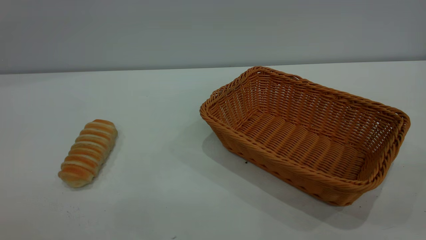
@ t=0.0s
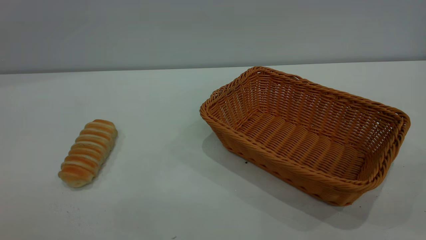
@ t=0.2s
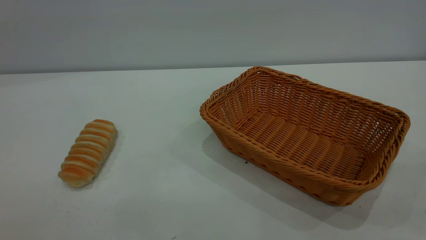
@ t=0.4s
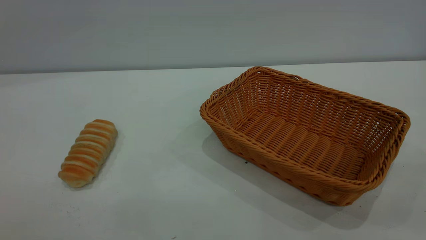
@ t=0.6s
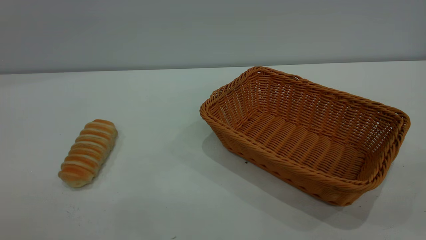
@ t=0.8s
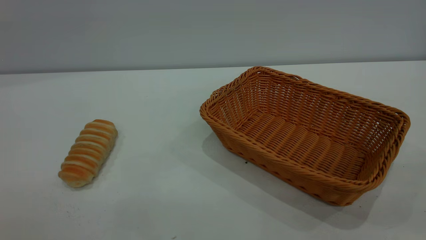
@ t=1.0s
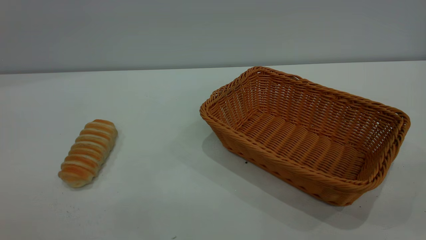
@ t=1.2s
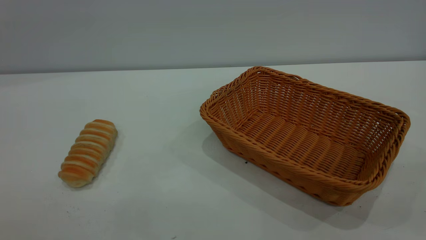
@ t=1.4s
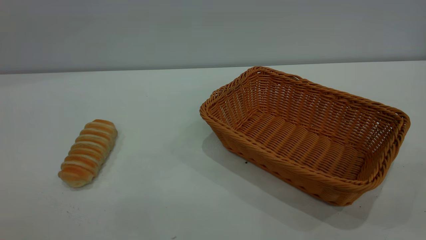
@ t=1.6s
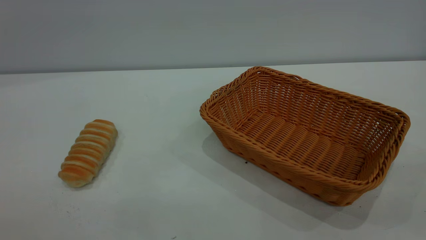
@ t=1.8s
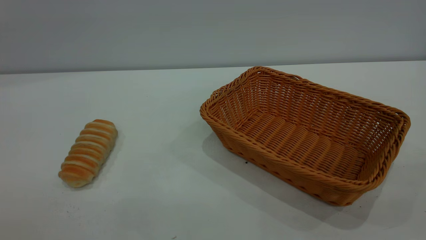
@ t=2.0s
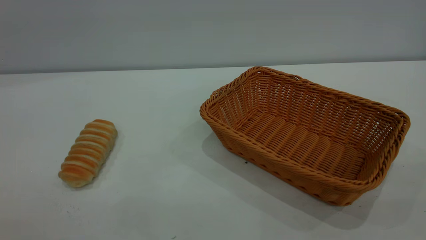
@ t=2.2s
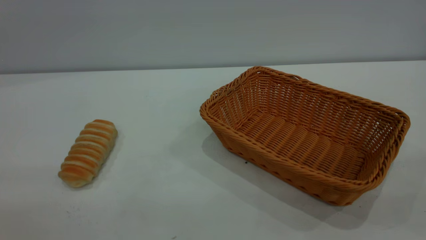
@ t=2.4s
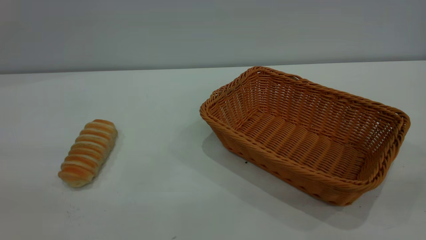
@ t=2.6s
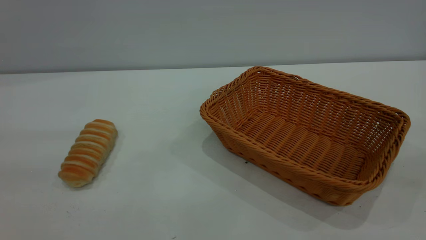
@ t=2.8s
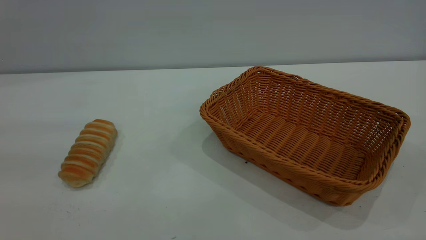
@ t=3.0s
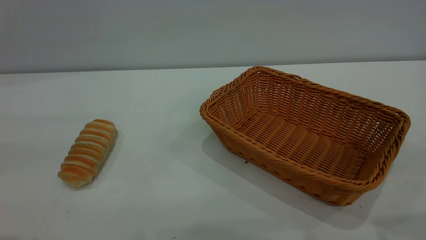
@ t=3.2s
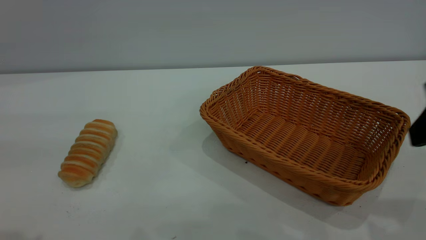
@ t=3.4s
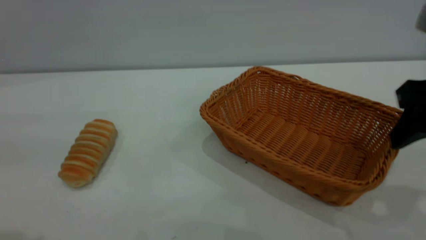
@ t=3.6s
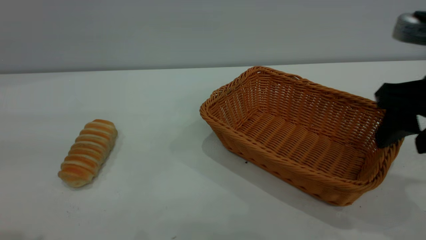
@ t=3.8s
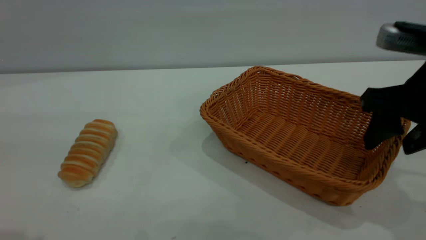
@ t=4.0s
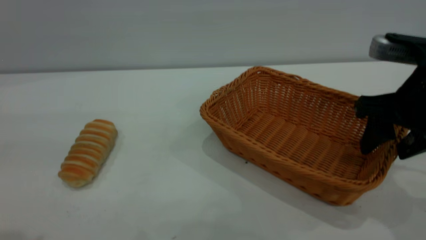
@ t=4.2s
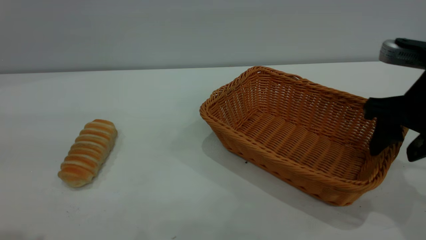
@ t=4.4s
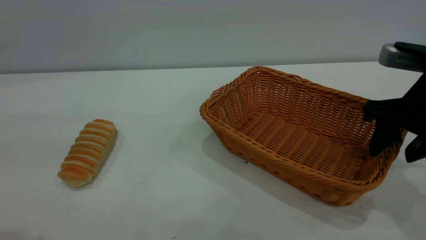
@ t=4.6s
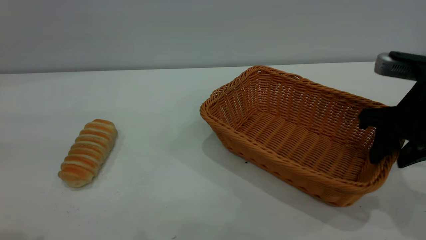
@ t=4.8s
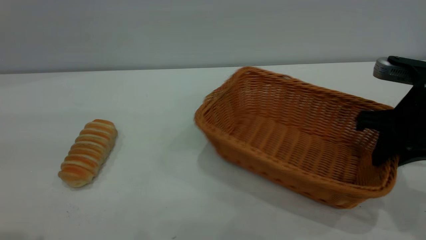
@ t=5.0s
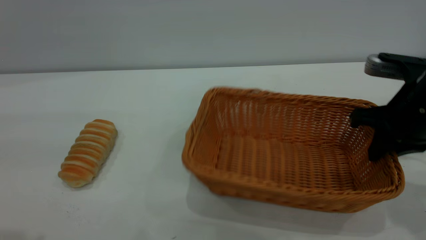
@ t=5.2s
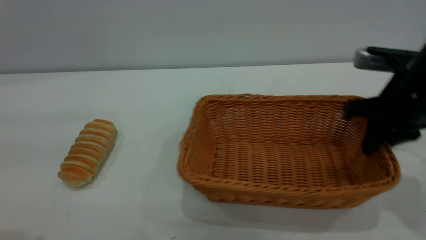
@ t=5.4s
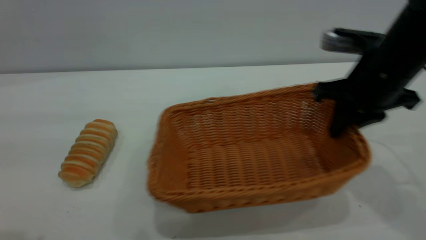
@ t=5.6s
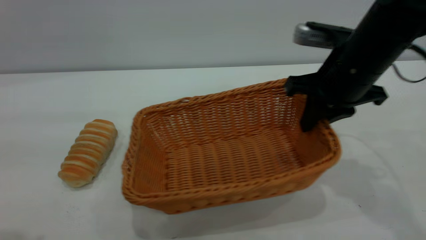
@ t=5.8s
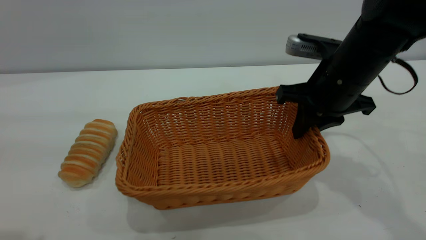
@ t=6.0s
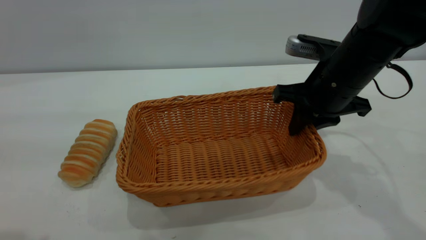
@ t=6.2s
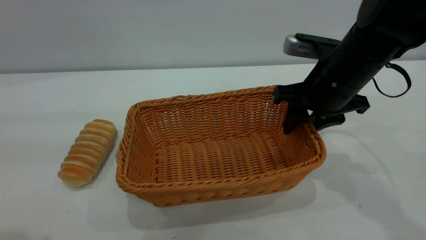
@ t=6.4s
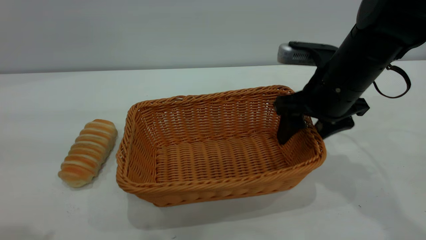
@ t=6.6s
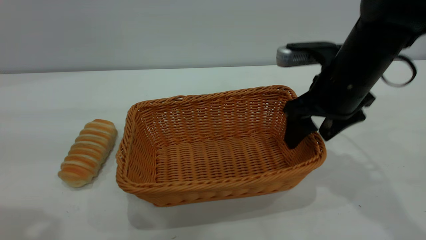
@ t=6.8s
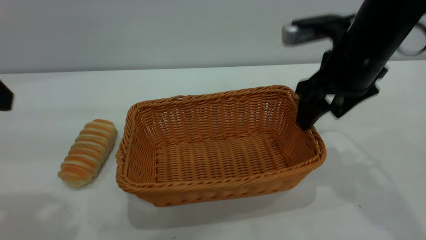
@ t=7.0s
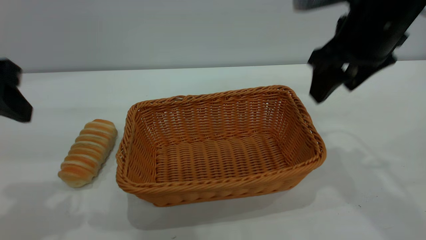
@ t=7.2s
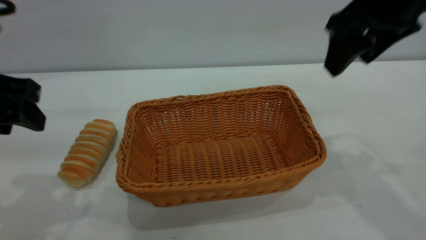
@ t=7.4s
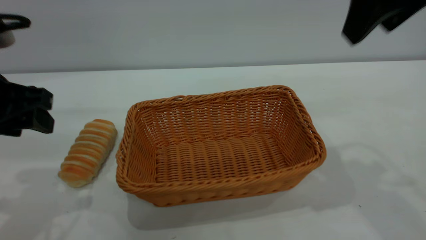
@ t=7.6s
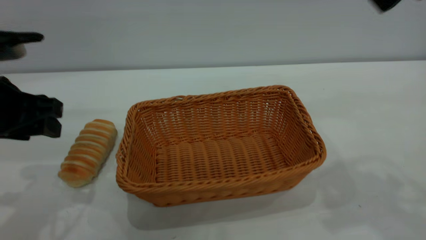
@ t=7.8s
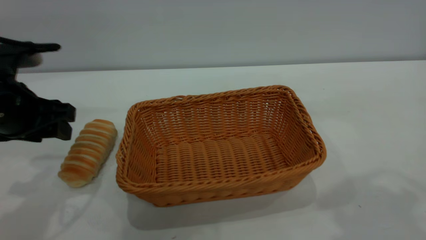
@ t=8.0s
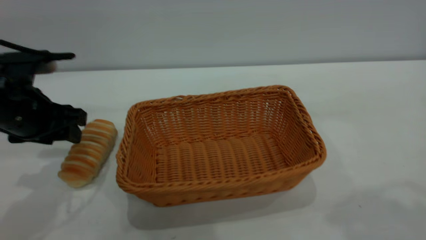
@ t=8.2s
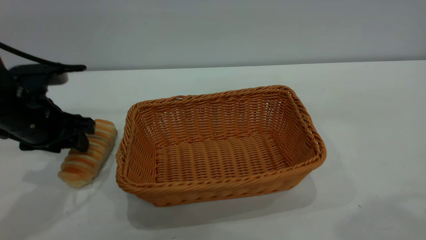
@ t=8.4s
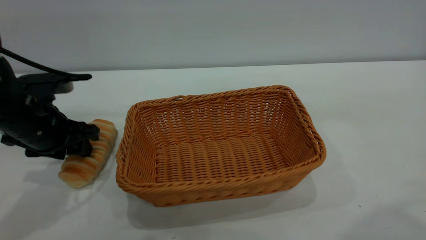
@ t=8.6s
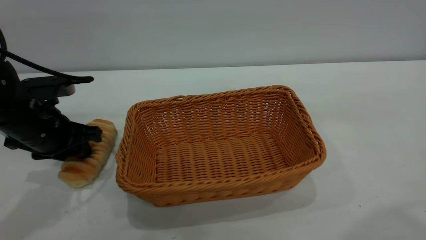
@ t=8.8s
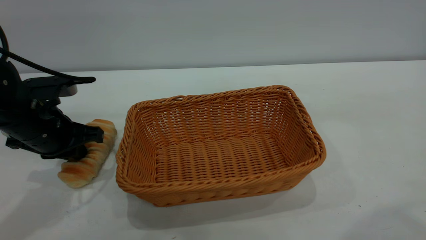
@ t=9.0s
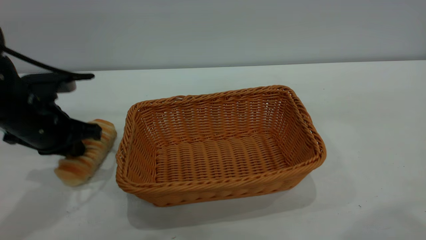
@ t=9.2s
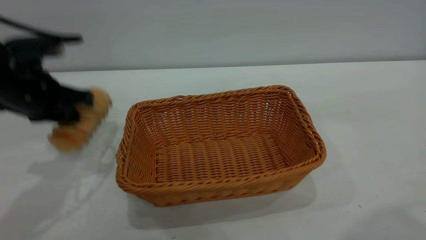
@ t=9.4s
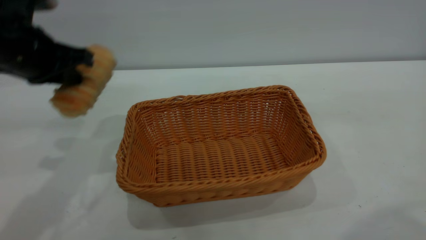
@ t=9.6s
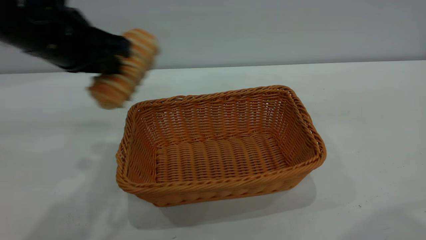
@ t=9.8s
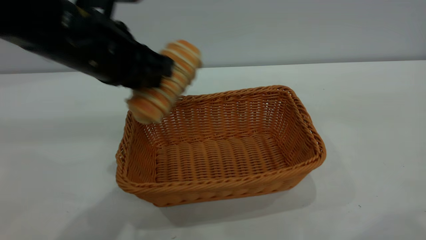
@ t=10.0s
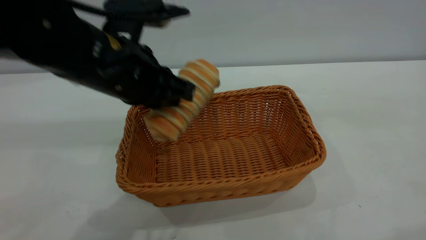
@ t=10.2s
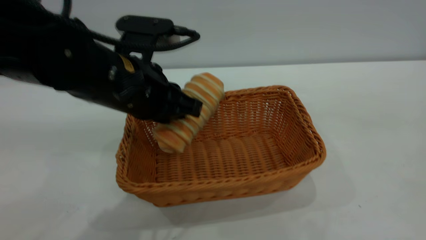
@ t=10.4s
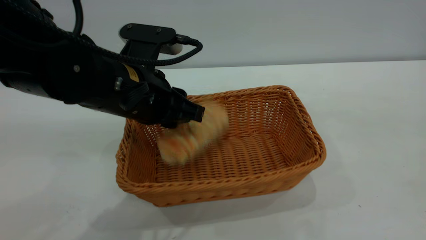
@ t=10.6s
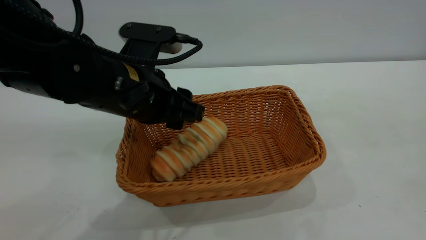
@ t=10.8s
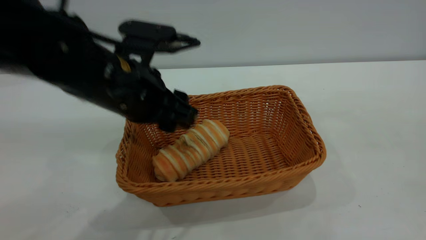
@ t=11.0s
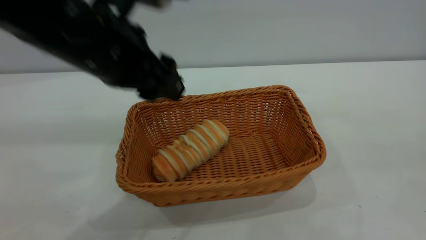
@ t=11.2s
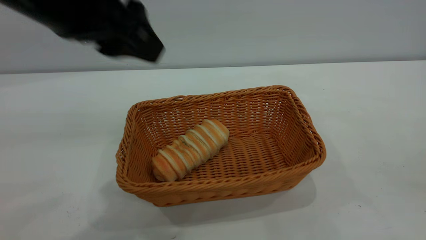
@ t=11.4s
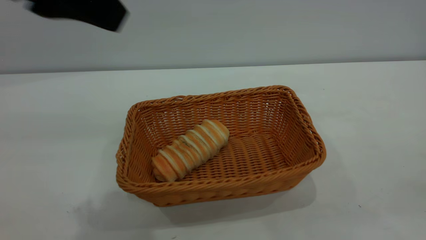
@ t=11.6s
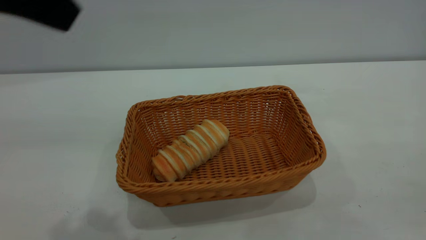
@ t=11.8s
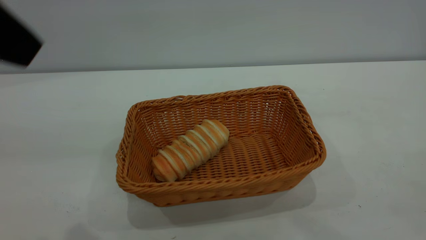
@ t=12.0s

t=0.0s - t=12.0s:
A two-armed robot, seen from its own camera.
Task of the whole recording: One hand grasps the yellow basket and places it in the middle of the table, while the other hand picks up the long bread and puts it into the yellow basket.
Step, t=0.0s - t=7.0s: Move the basket to the center of view.
Step, t=9.6s - t=11.2s: place the bread into the basket.
t=0.0s - t=1.6s: Both grippers stay about where they are.
t=3.0s - t=4.4s: The right gripper goes some 20 cm forward and downward.
t=4.4s - t=6.0s: The right gripper moves to the left and forward, roughly 10 cm, and closes.
t=6.0s - t=7.6s: The right gripper moves upward, roughly 20 cm, and opens up. Meanwhile the left gripper shifts approximately 15 cm downward and forward.
t=7.6s - t=9.0s: The right gripper goes some 15 cm backward and upward. The left gripper travels downward and forward by roughly 10 cm, and closes up.
t=9.0s - t=10.4s: The right gripper is displaced backward by approximately 5 cm, while the left gripper heads to the right and upward, covering approximately 15 cm.
t=10.4s - t=12.0s: The left gripper is displaced upward, backward and to the left by about 25 cm, and opens up; the right gripper shifts roughly 15 cm downward and backward.

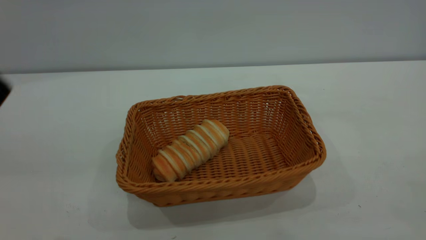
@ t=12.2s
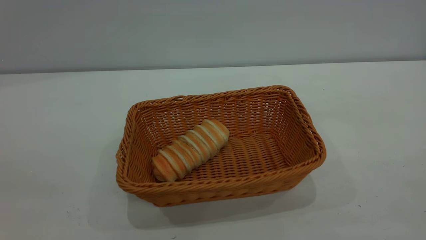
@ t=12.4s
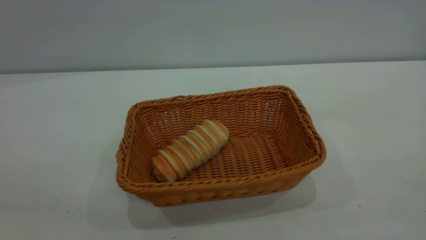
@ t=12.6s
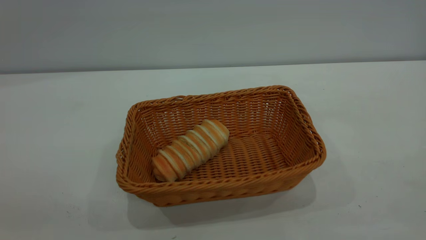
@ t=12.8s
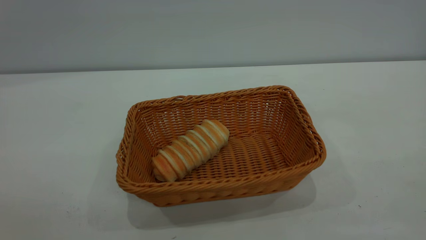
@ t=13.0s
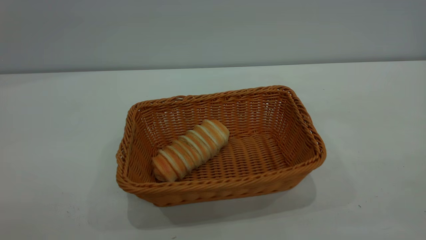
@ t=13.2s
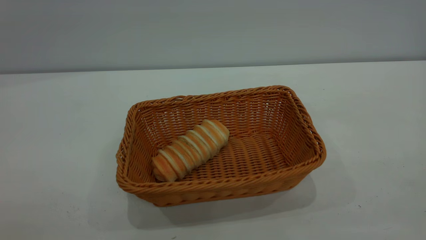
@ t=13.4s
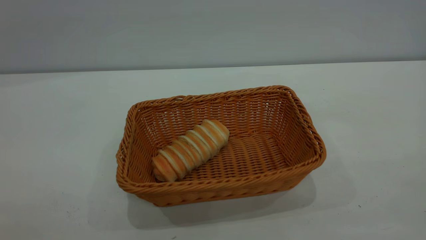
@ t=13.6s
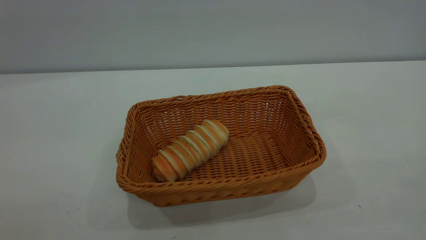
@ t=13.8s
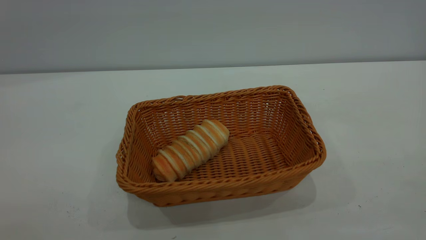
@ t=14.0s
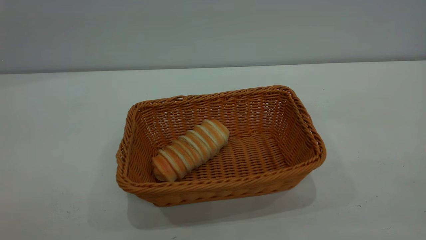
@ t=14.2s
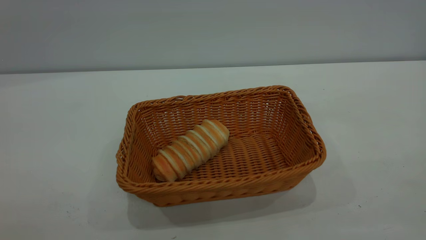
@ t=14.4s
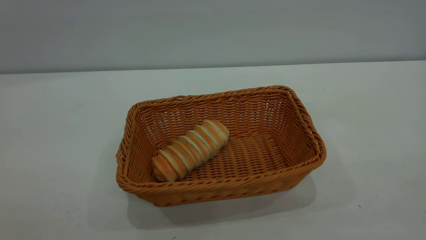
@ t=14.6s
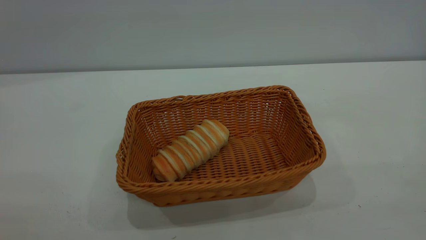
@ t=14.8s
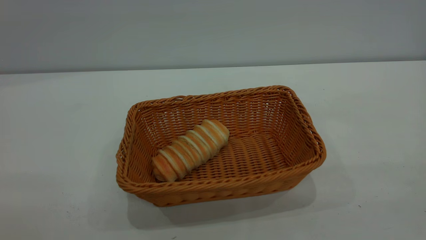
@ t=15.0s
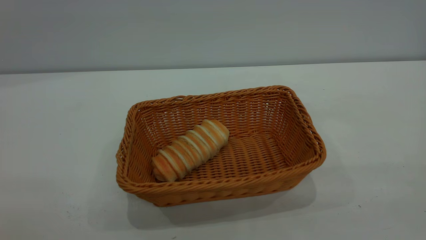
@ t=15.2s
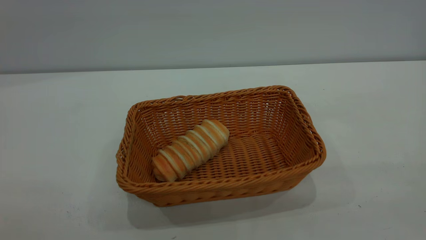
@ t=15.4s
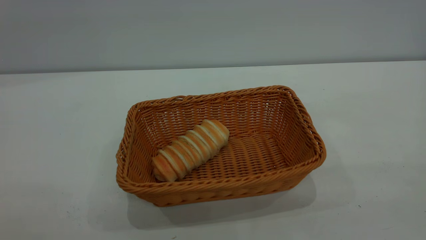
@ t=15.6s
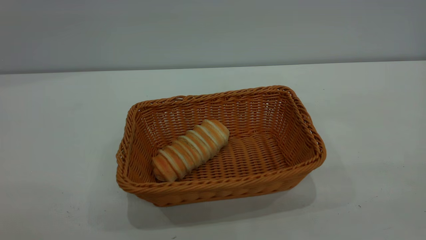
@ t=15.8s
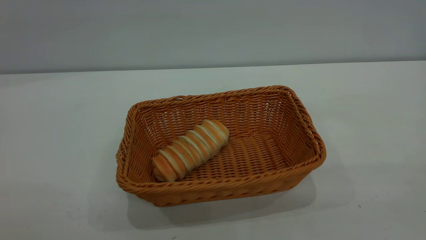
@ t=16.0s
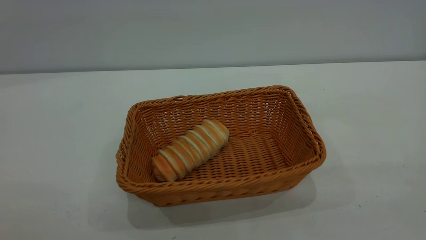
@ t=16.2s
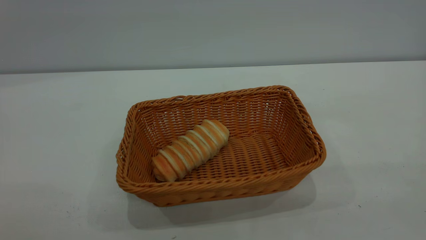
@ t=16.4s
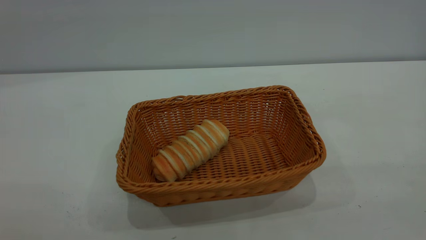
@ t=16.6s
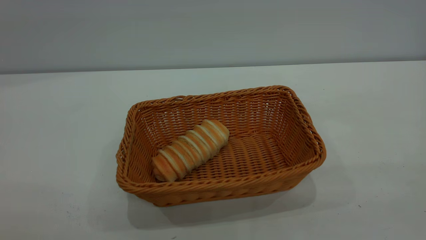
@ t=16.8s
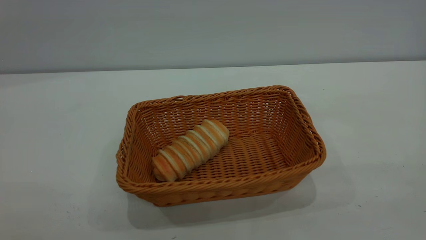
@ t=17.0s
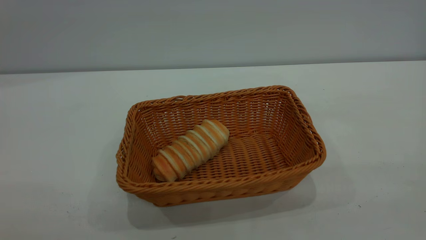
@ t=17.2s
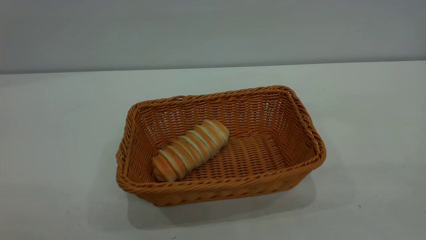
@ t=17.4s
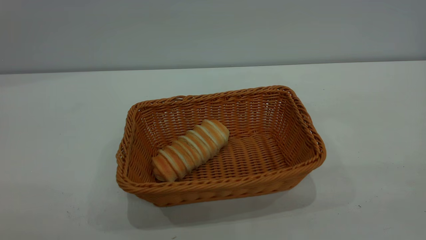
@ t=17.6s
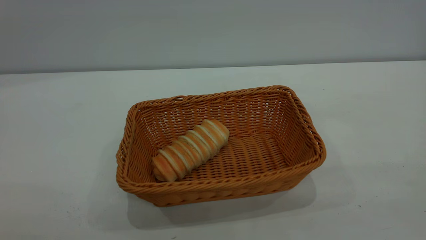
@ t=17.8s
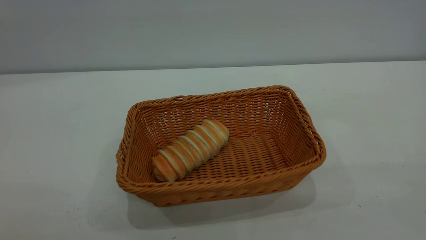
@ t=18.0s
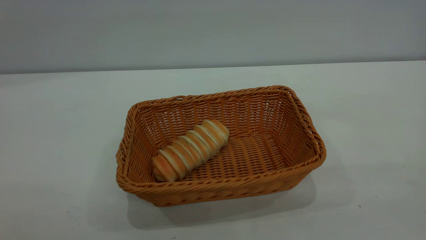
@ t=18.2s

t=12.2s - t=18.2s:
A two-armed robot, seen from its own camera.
Task of the whole recording: One hand grasps the yellow basket and places it in the middle of the table, while the other hand picks up the long bread and puts it into the yellow basket.
t=15.2s - t=18.2s: The two grippers keep their place.
